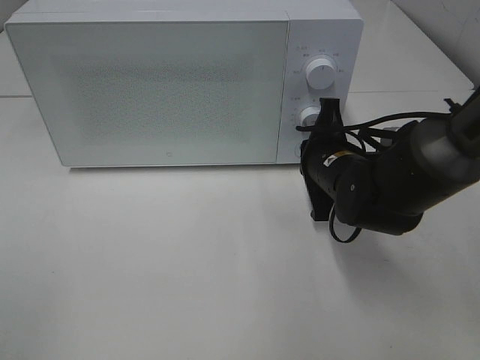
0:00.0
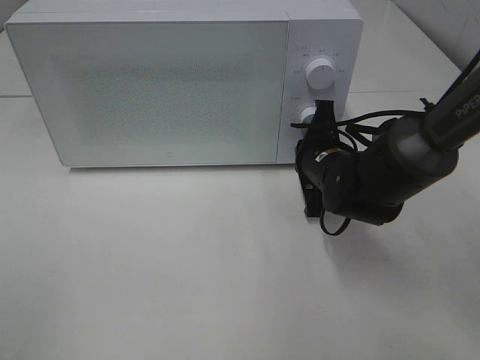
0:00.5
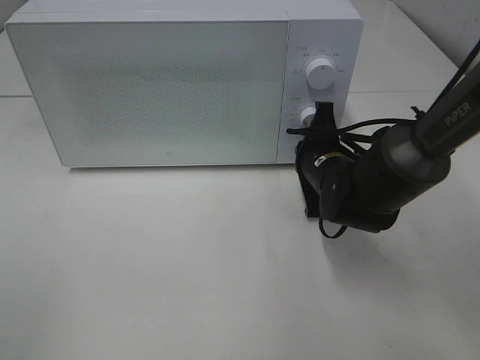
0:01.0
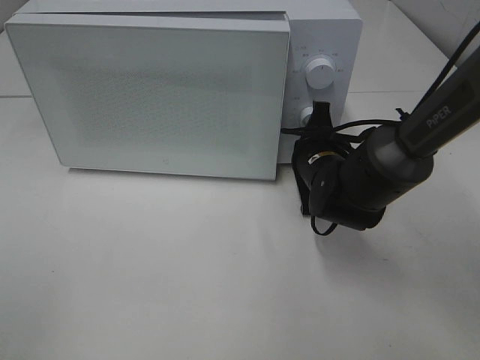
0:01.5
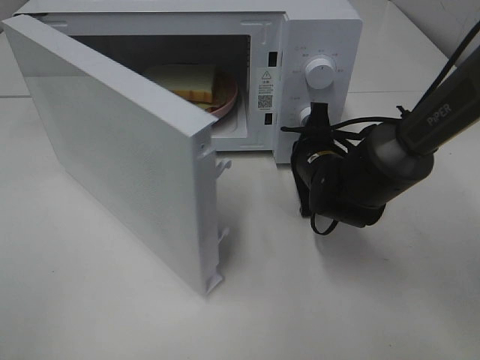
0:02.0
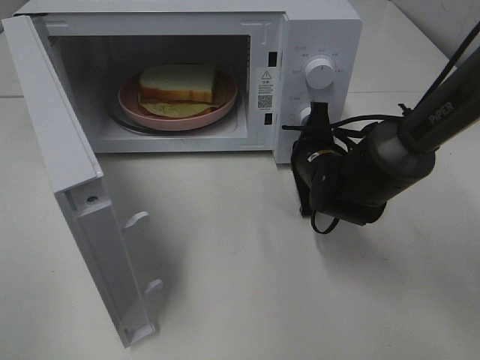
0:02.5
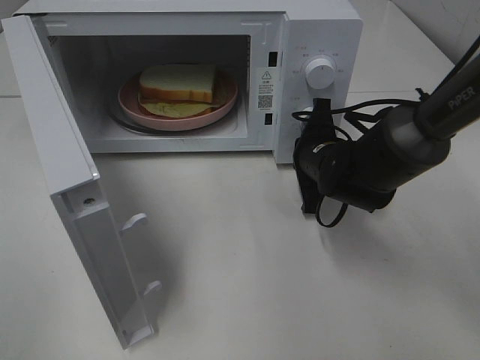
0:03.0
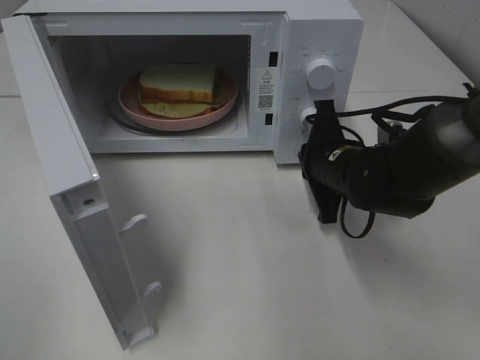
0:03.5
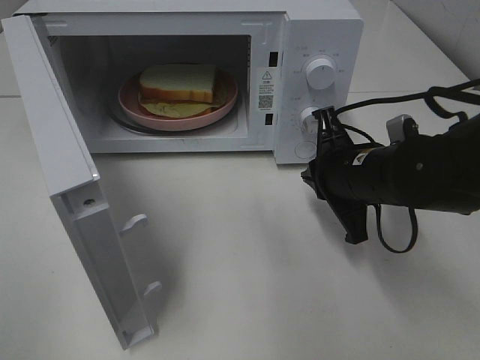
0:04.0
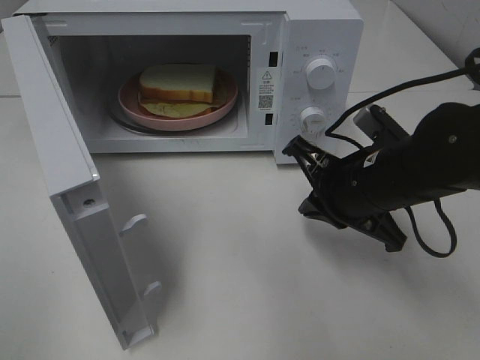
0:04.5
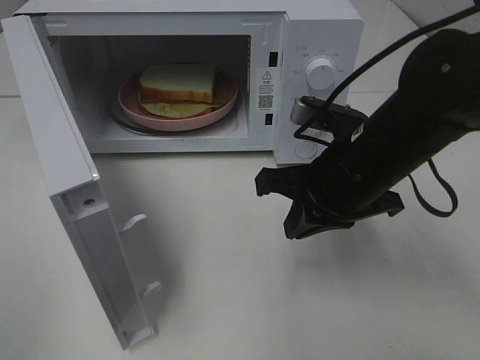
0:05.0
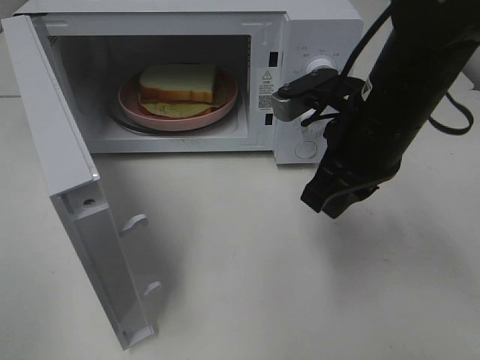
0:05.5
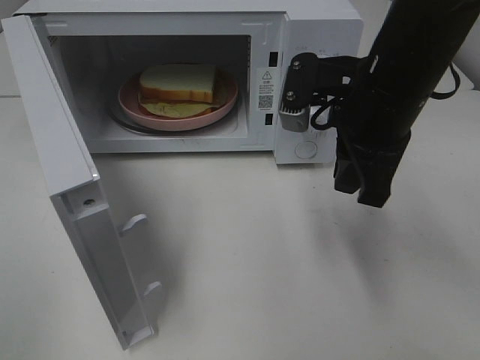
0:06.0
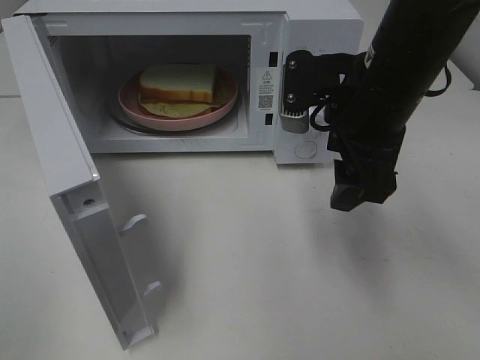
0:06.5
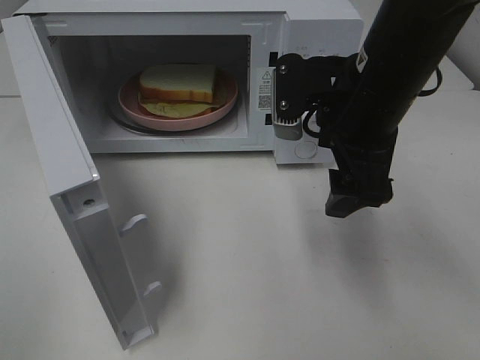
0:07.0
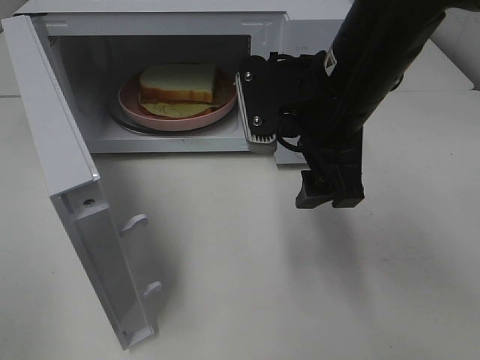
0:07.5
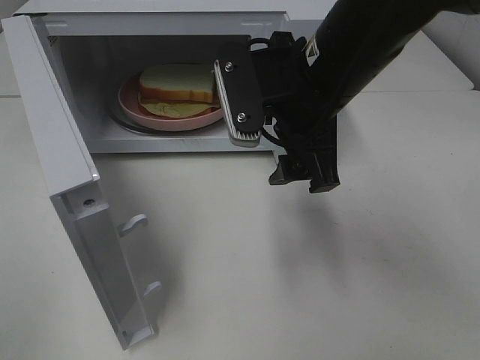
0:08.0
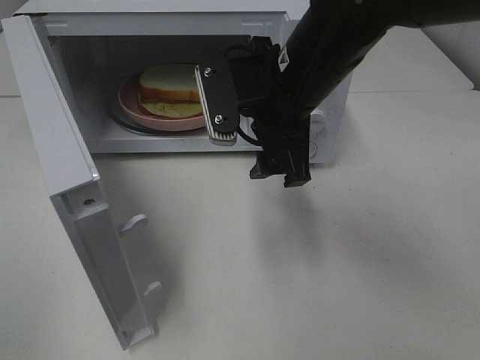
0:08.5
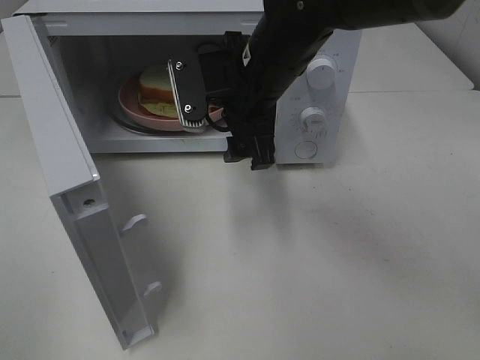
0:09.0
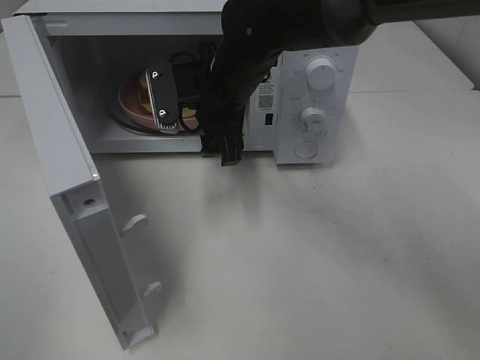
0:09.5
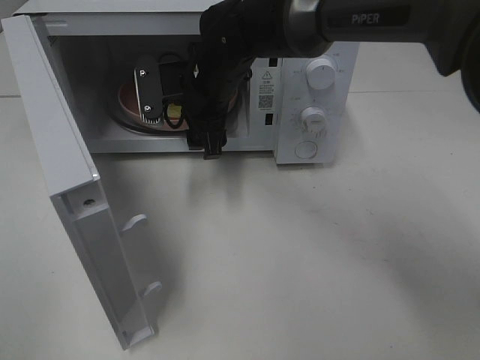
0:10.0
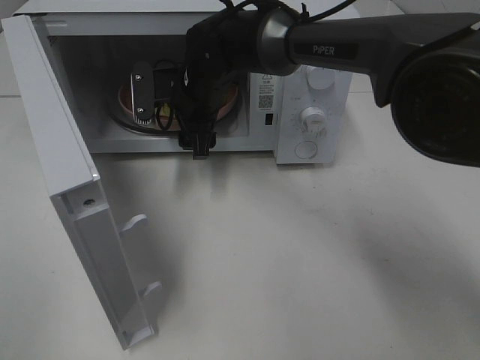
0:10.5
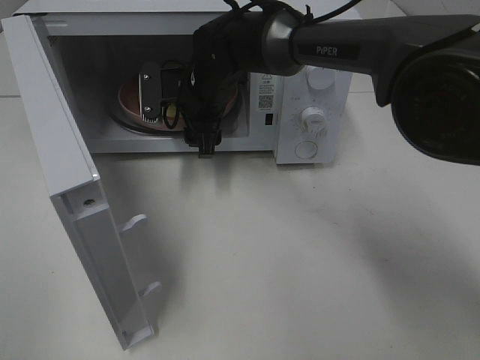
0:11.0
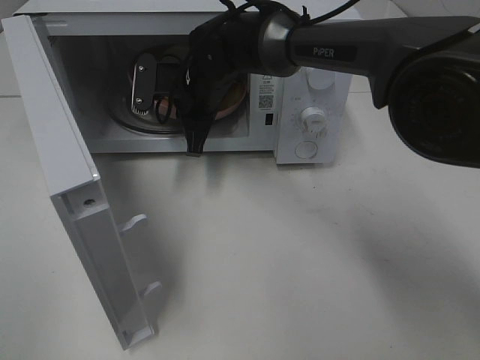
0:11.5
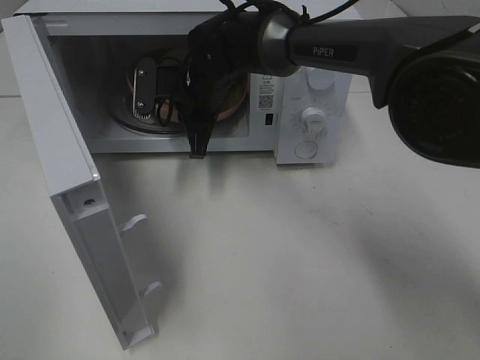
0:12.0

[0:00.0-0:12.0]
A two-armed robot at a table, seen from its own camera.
Task of the whole recording: Heat Sandwich.
Step, 0:00.0 to 0:03.0: Right hand: press the switch.
Step, 0:03.5 to 0:11.5: Right hand: grab the plate with the sandwich.
0:02.0 to 0:04.0: The right gripper moves backward and upward, some 10 cm.
0:04.0 to 0:06.0: The right gripper moves upward, approximately 10 cm.
0:06.0 to 0:08.0: The right gripper heads to the left, covering roughly 5 cm, and opens.
0:08.0 to 0:10.0: The right gripper goes about 20 cm forward, to the left and downward.
0:10.0 to 0:12.0: The right gripper closes up.

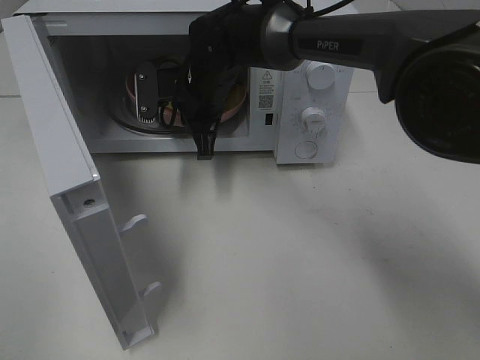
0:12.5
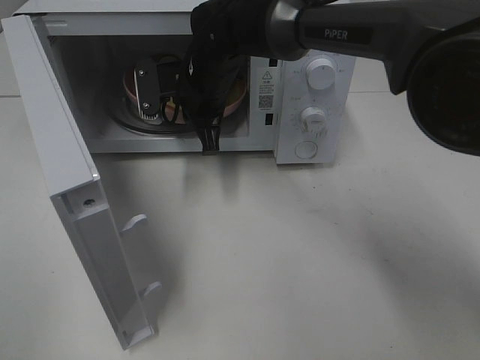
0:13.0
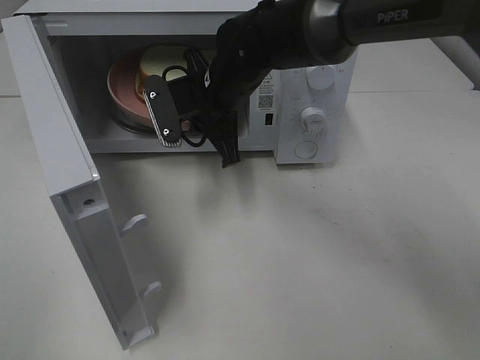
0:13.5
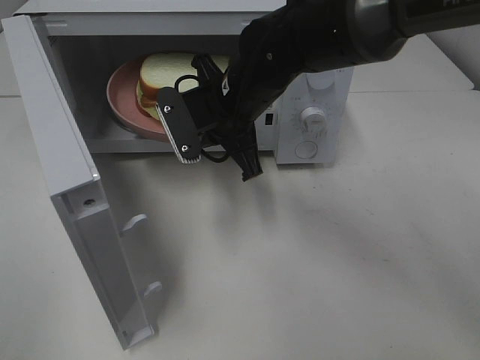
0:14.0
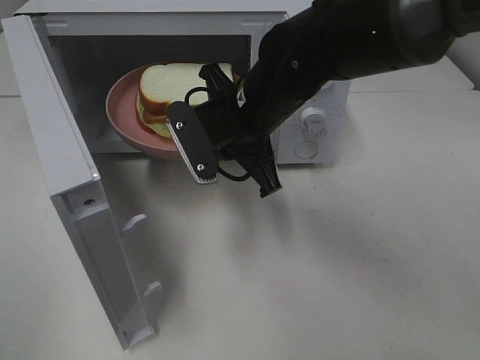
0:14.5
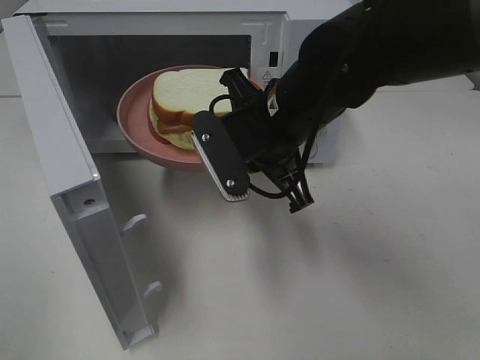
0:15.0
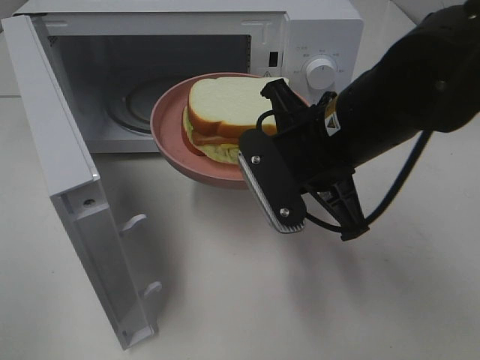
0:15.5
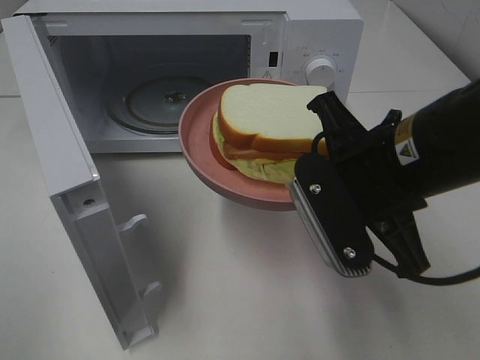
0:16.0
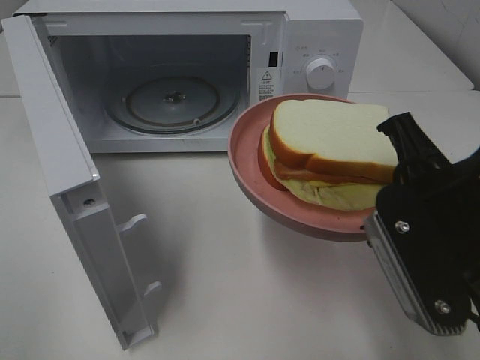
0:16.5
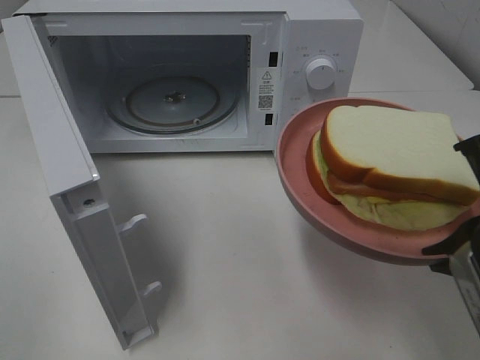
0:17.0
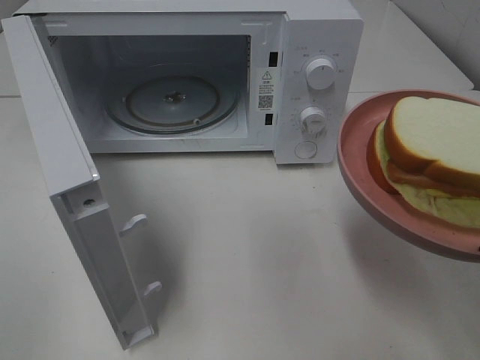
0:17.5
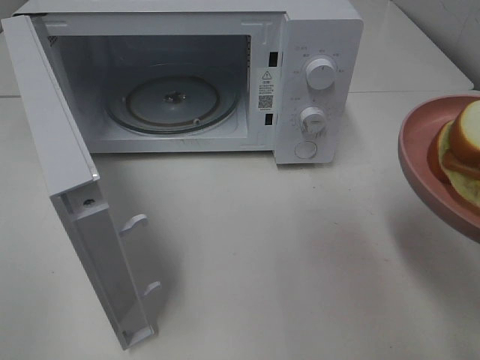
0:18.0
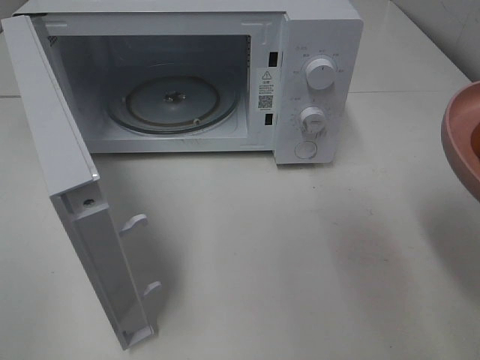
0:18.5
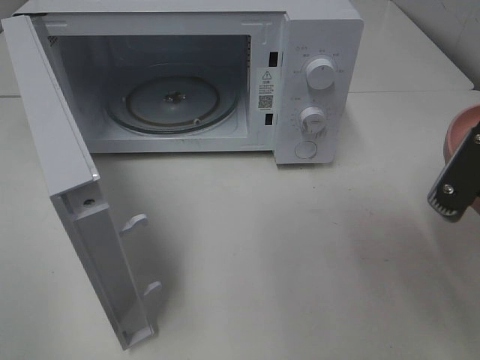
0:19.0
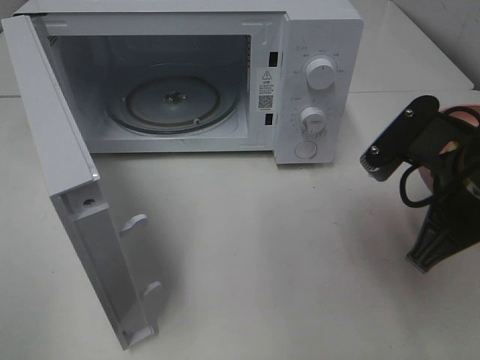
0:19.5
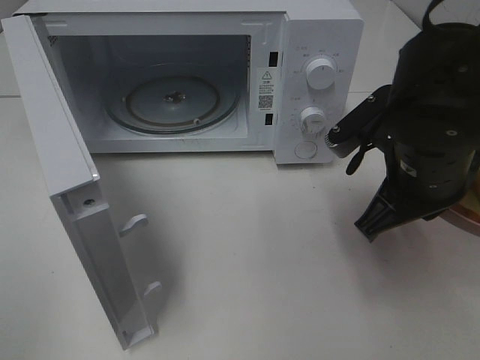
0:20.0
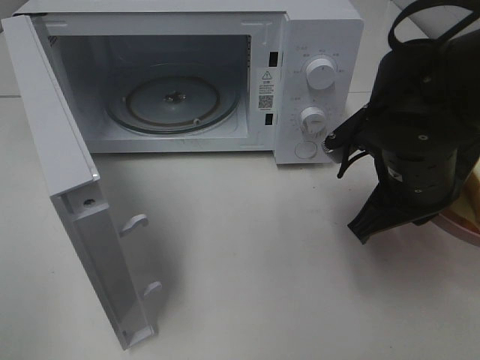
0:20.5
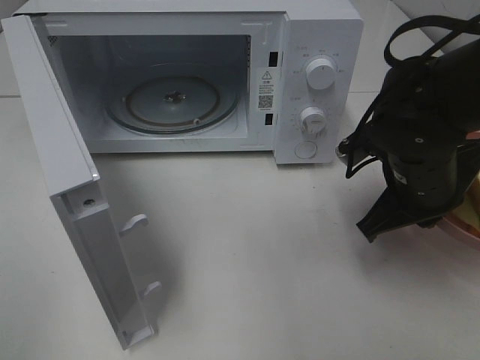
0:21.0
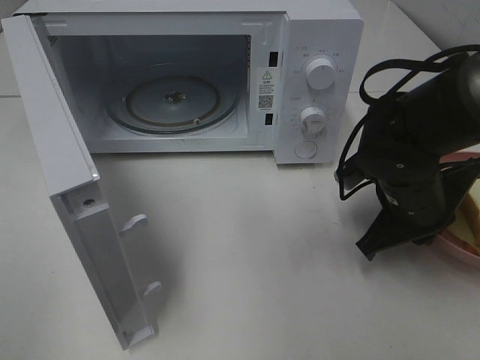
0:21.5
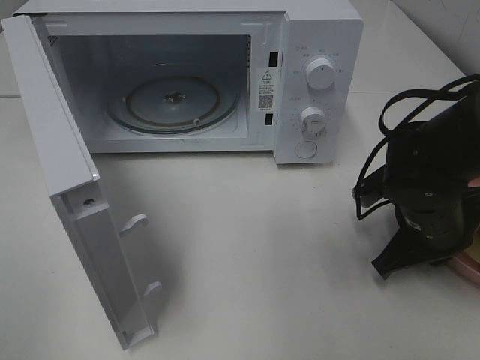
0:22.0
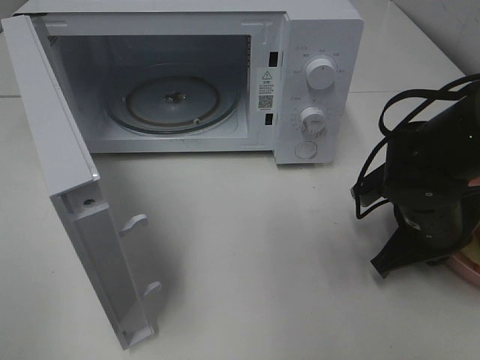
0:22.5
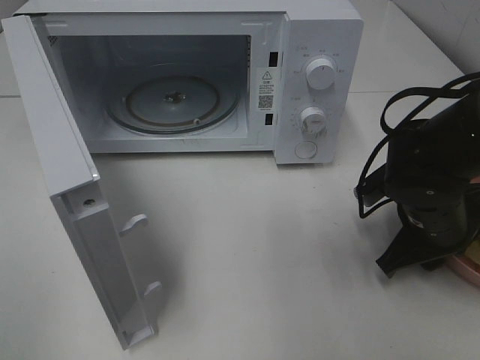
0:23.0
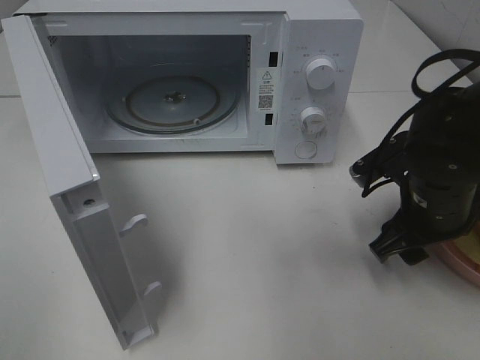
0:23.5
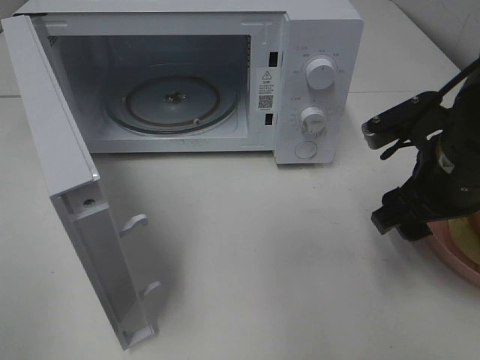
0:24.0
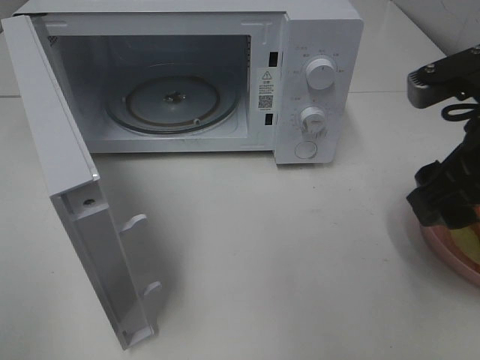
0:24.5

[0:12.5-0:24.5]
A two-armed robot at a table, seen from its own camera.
Task of the whole recording: Heat Sandwich.
Step, 0:12.5 to 0:24.0: Right hand: place the plate on the table.
0:12.5 to 0:14.5: The right gripper goes some 15 cm backward and to the right.
0:14.5 to 0:16.5: The right gripper goes roughly 20 cm backward and to the right.
0:16.5 to 0:18.5: The right gripper goes about 10 cm to the right.
0:18.5 to 0:20.5: The right gripper moves forward, to the left and downward, roughly 20 cm.
0:20.5 to 0:22.5: The right gripper moves downward, about 10 cm.
0:22.5 to 0:24.5: The right gripper moves upward and backward, about 15 cm, and opens.

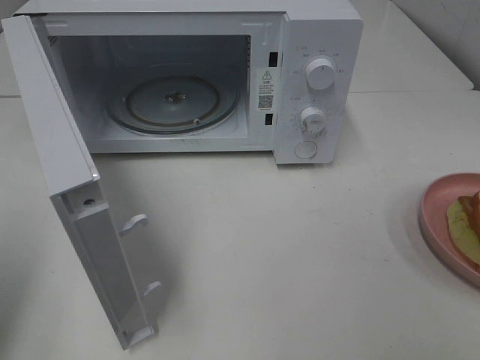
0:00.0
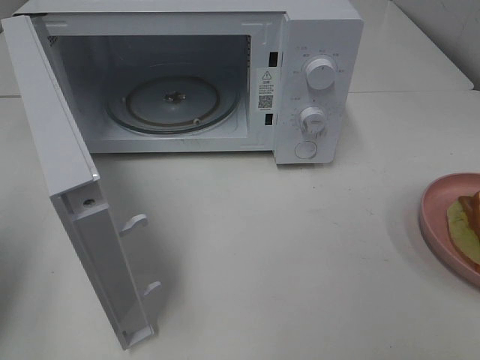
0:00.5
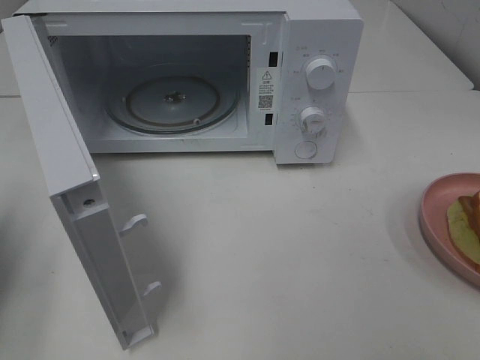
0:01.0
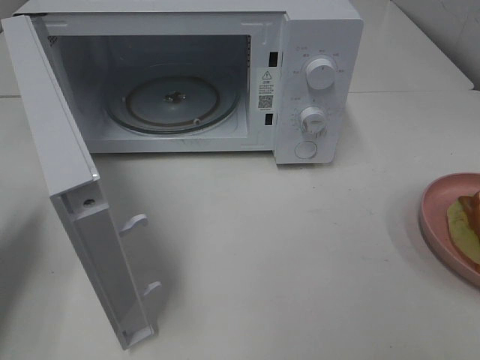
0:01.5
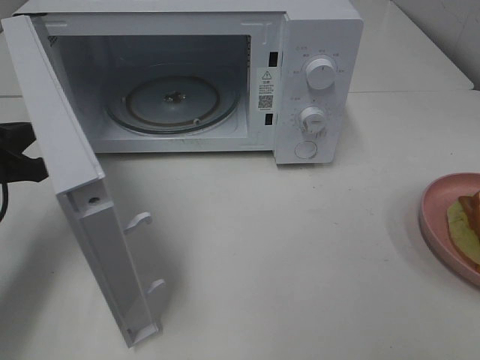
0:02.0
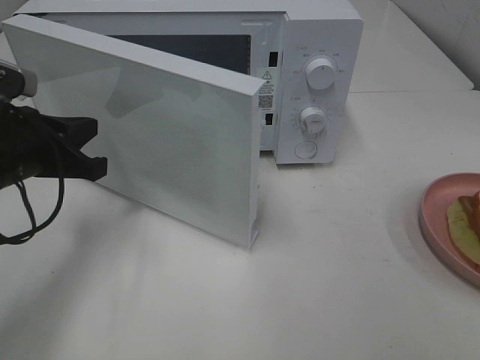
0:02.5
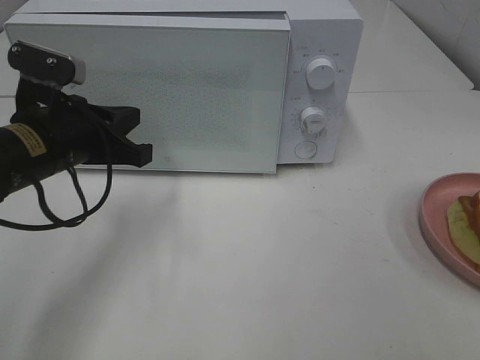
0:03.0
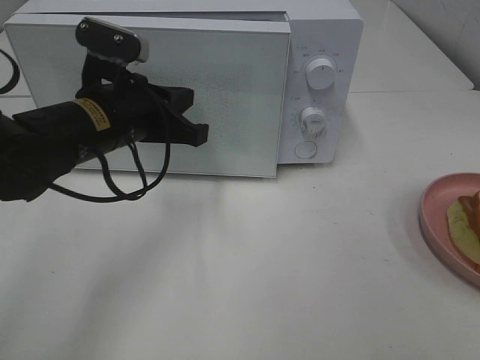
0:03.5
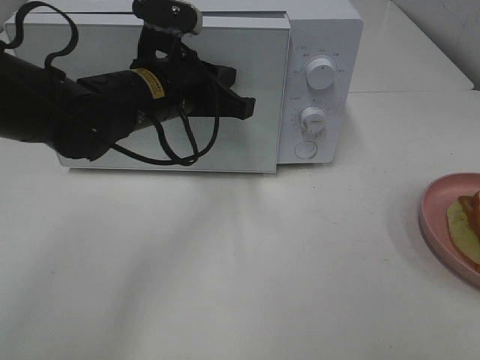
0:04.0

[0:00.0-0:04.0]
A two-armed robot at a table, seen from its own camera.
Task of the whole recording: Heat Sandwich.
0:00.0 to 0:02.0: The left gripper is displaced forward, downward and to the right by approximately 20 cm.
0:02.0 to 0:04.0: The left gripper goes approximately 20 cm to the right and forward.
